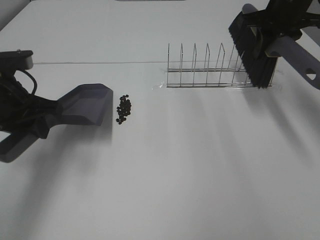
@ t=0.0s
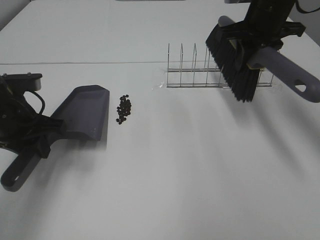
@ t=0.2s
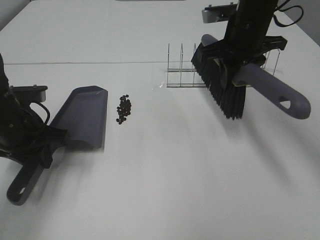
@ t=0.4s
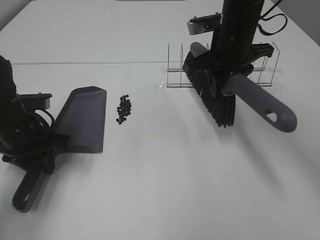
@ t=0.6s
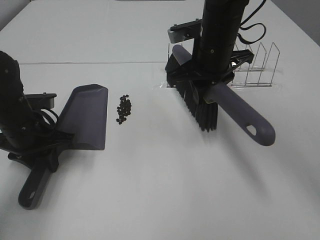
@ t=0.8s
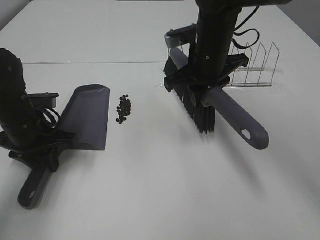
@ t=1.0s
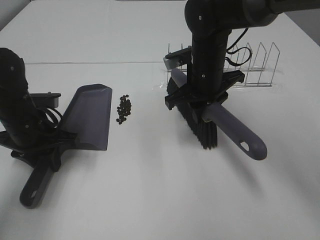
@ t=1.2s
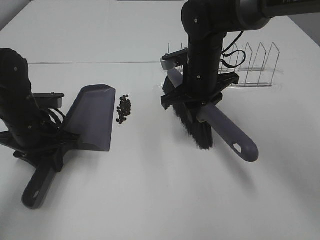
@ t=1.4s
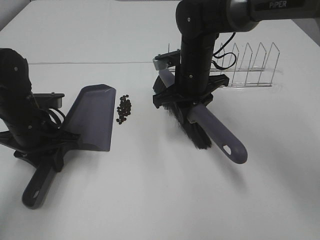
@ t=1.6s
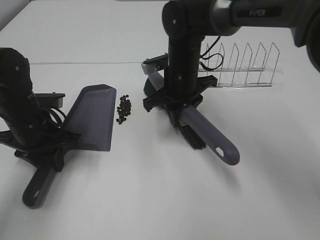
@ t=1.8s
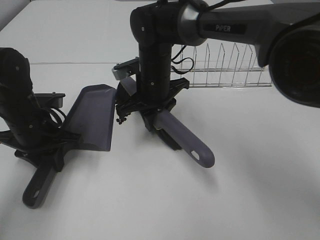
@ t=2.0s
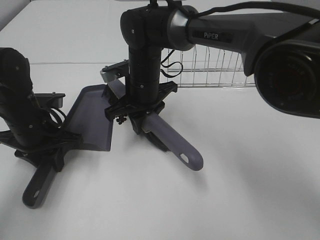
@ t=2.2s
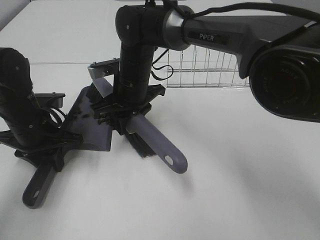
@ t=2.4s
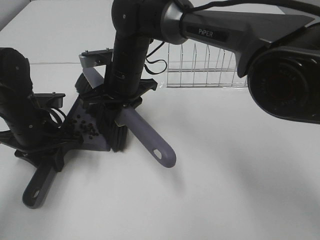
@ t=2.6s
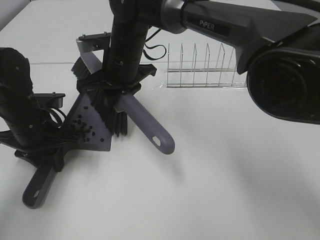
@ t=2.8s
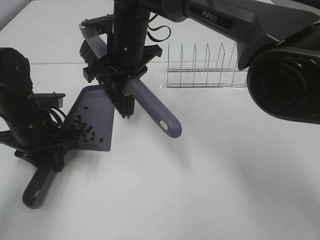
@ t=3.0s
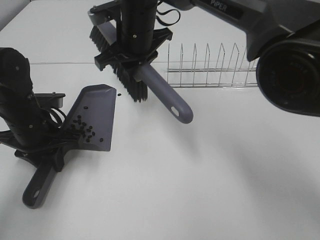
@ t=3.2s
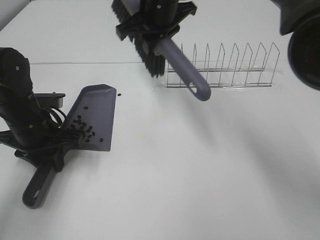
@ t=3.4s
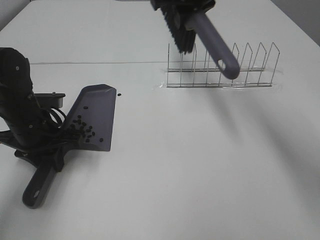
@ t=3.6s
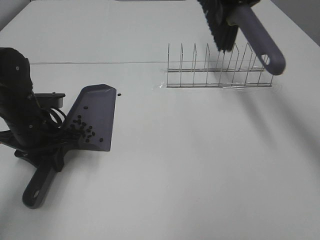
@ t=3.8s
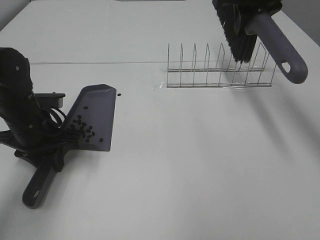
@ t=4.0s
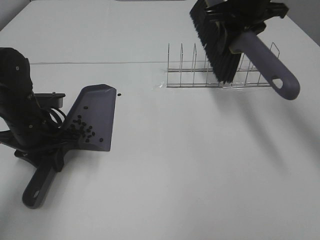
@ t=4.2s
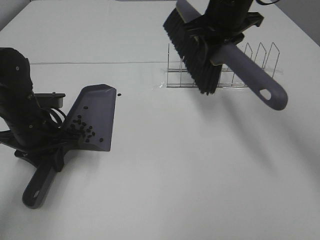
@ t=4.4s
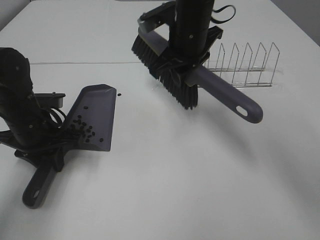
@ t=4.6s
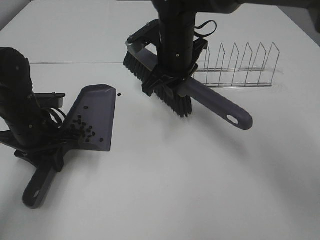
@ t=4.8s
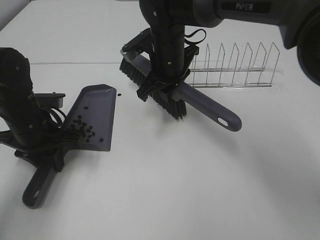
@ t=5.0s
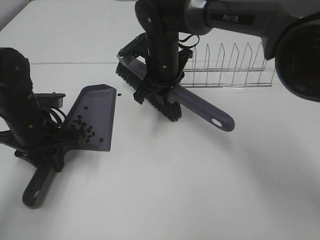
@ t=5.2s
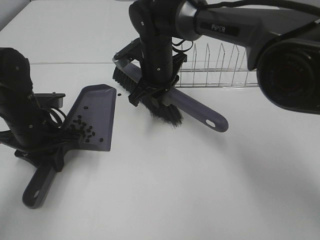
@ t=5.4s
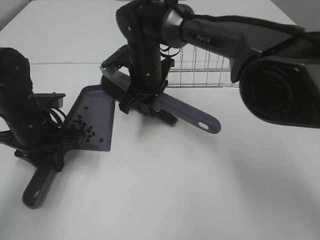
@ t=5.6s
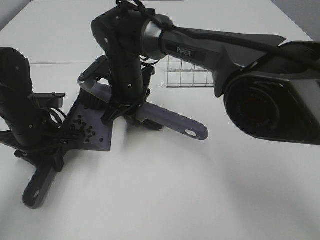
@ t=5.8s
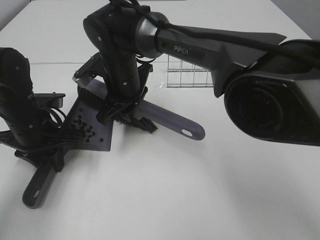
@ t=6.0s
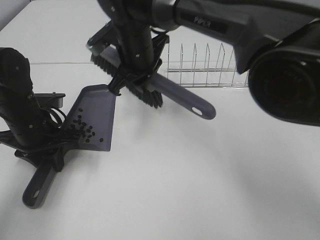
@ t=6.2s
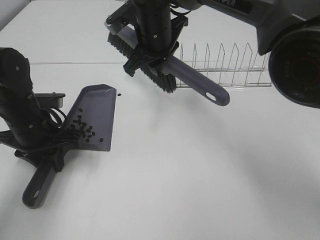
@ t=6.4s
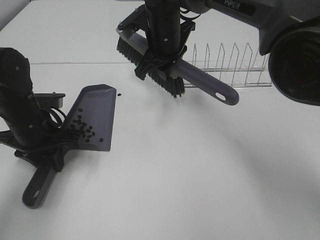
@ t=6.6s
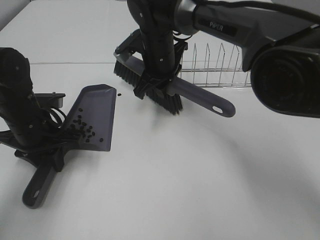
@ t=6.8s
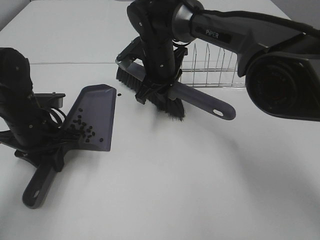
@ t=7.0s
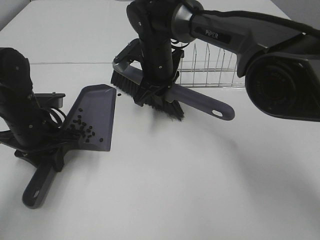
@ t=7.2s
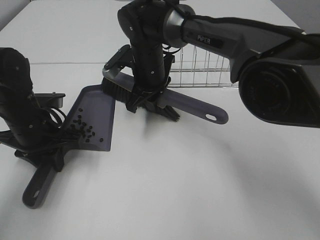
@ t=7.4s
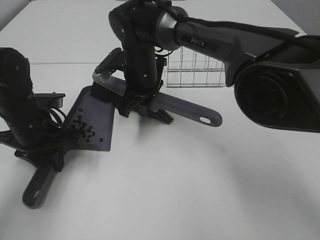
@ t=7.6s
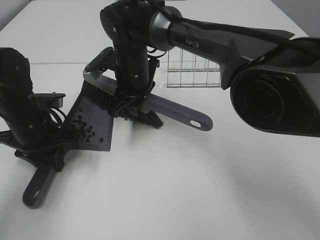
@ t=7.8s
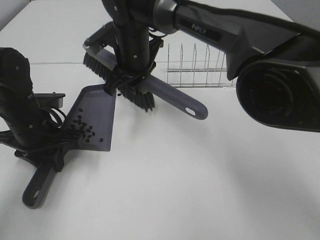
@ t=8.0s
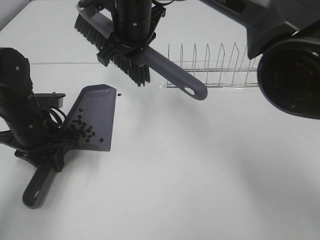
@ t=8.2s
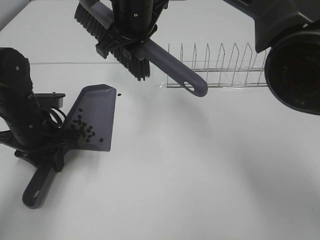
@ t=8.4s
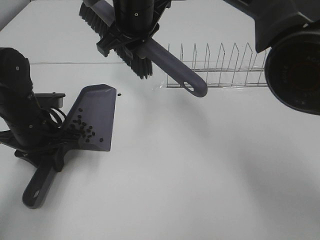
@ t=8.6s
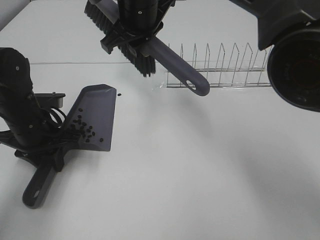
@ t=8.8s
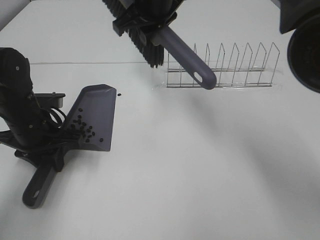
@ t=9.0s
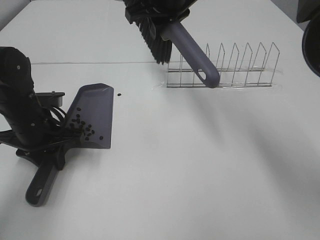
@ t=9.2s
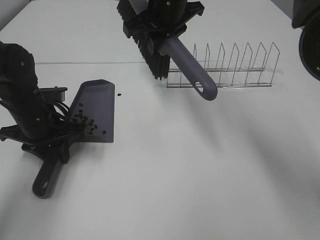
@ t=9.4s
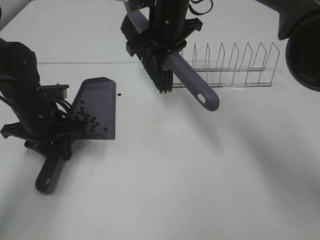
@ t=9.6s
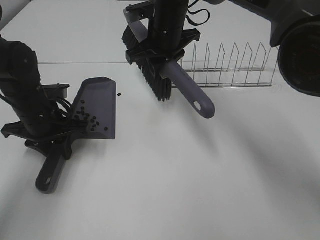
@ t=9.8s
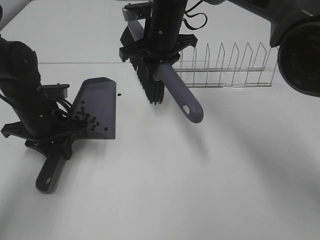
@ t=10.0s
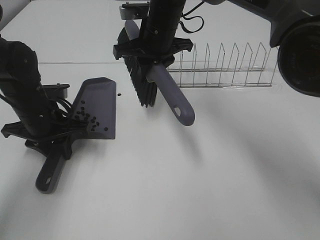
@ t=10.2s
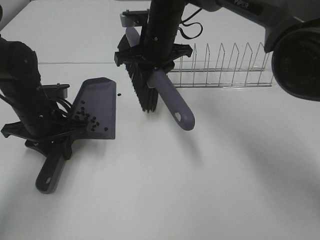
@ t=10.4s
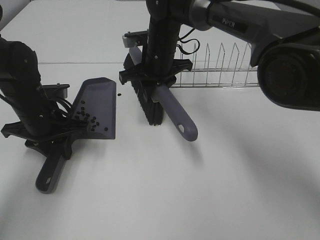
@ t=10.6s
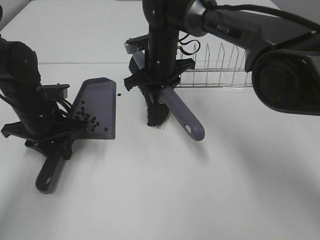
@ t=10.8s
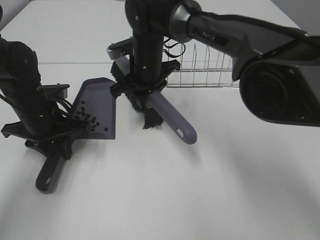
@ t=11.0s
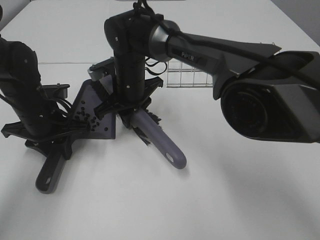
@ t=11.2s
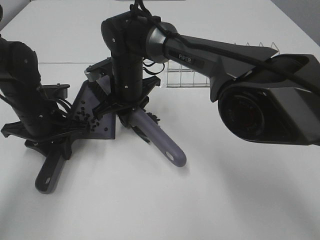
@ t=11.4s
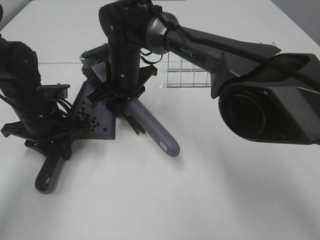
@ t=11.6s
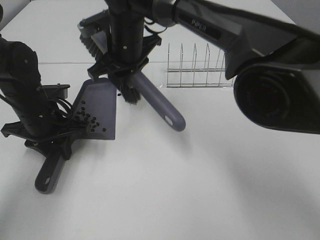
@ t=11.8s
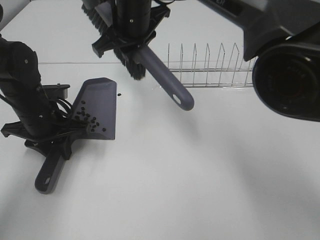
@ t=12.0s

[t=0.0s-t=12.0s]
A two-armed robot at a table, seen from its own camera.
Task of the whole recording: Sweep Coffee Bean.
Step, t=0.0s to t=11.6s: Right hand:sweep the coffee beans into the dustpan.
t=0.0s to t=1.6s: The right gripper moves to the left and downward, roughly 20 cm. The left gripper shifts about 10 cm downward.
t=1.6s to t=3.0s: The right gripper moves to the left and upward, some 15 cm.
t=3.0s to t=4.4s: The right gripper moves to the right and upward, roughly 15 cm.
t=4.4s to t=6.0s: The right gripper heads to the left and downward, covering about 20 cm.
t=6.0s to t=7.6s: The right gripper moves some 5 cm upward and comes back.
t=7.6s to t=9.0s: The right gripper moves upward, approximately 15 cm.
t=9.0s to t=10.4s: The right gripper heads downward, covering about 10 cm.
t=10.4s to t=12.0s: The right gripper goes roughly 5 cm upward.

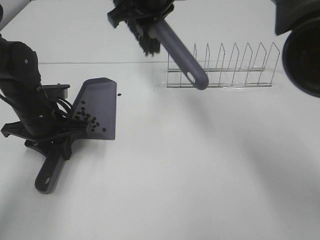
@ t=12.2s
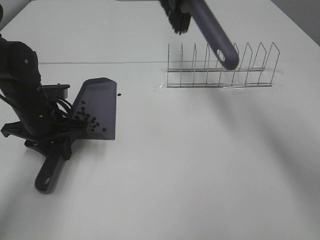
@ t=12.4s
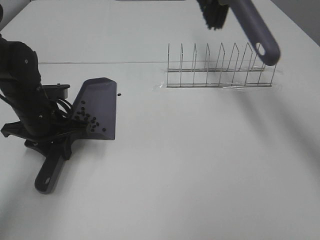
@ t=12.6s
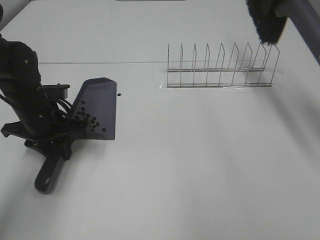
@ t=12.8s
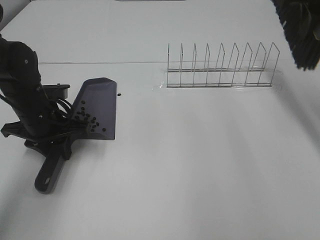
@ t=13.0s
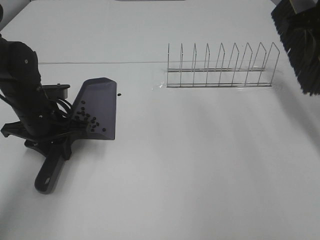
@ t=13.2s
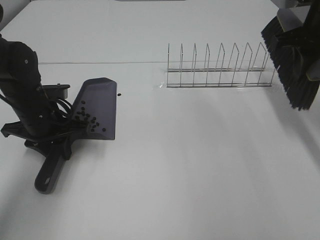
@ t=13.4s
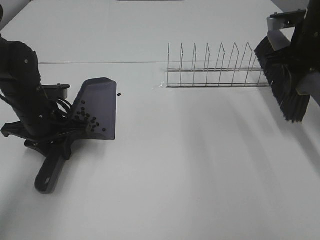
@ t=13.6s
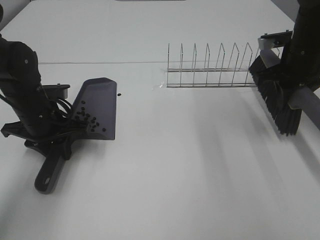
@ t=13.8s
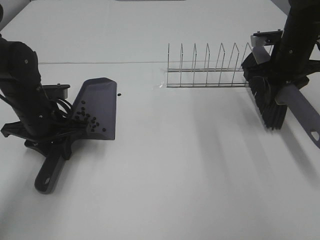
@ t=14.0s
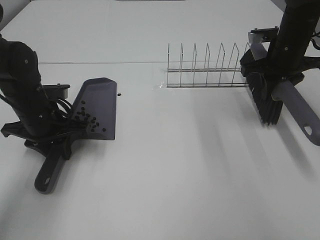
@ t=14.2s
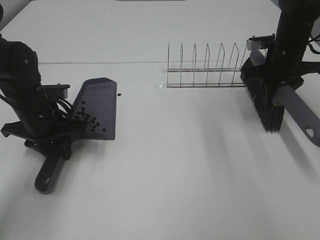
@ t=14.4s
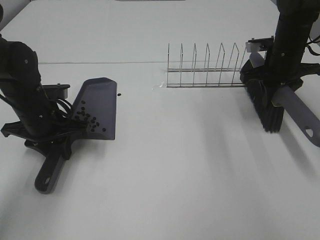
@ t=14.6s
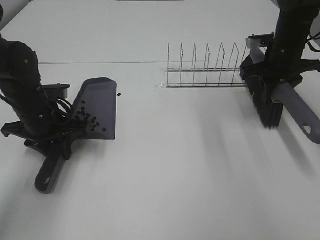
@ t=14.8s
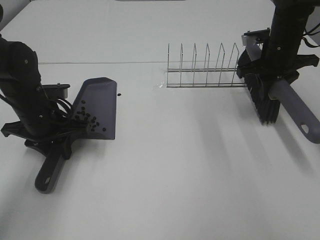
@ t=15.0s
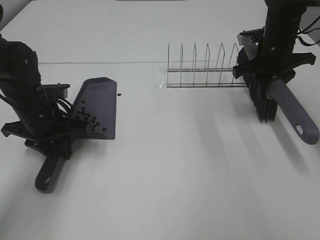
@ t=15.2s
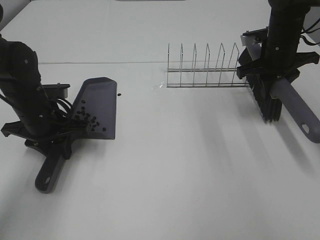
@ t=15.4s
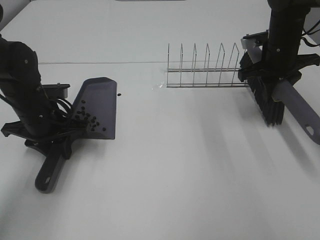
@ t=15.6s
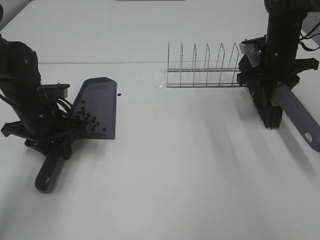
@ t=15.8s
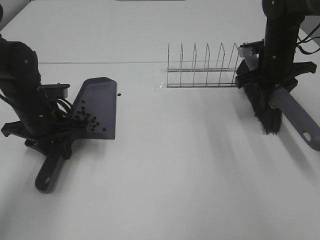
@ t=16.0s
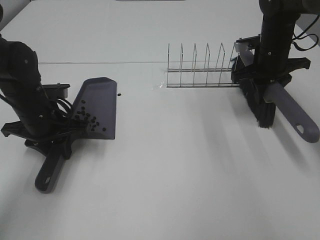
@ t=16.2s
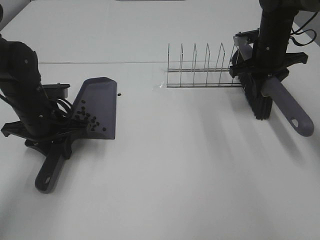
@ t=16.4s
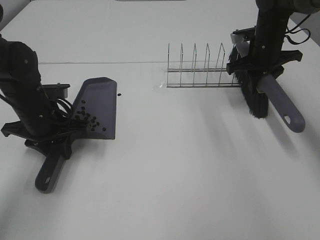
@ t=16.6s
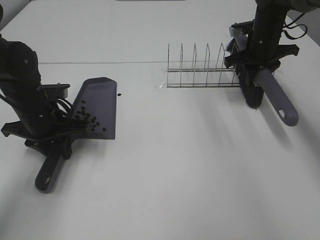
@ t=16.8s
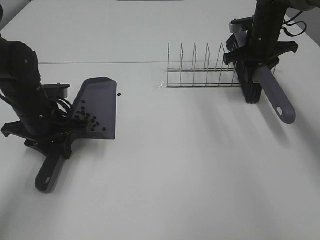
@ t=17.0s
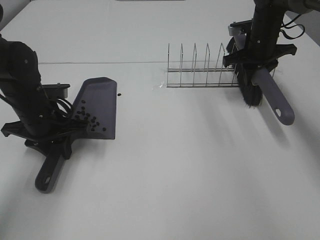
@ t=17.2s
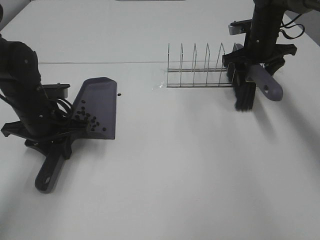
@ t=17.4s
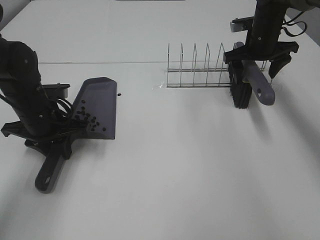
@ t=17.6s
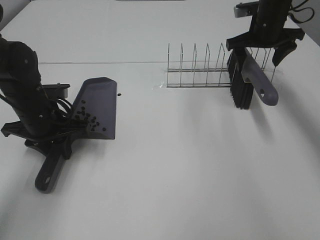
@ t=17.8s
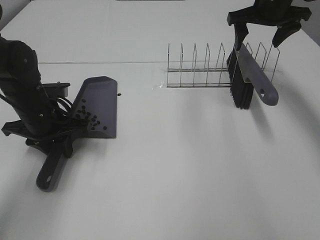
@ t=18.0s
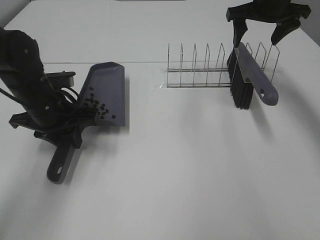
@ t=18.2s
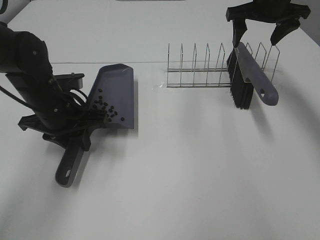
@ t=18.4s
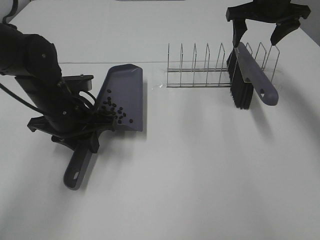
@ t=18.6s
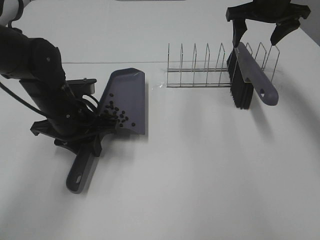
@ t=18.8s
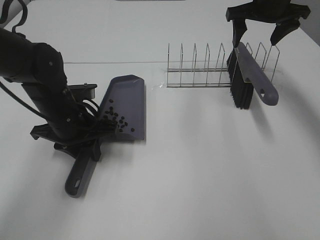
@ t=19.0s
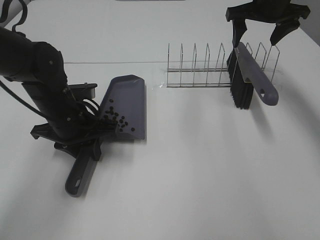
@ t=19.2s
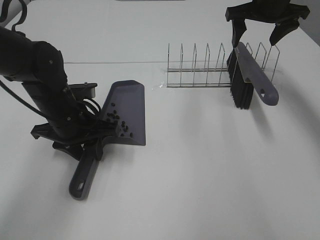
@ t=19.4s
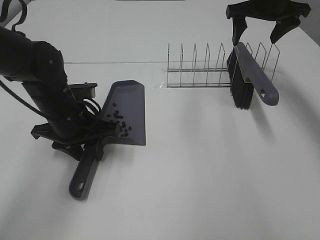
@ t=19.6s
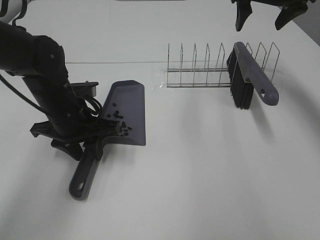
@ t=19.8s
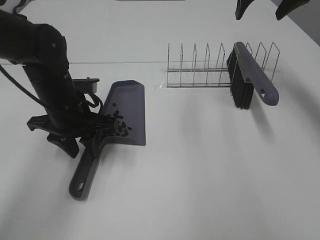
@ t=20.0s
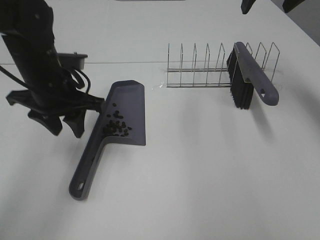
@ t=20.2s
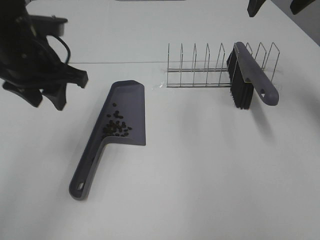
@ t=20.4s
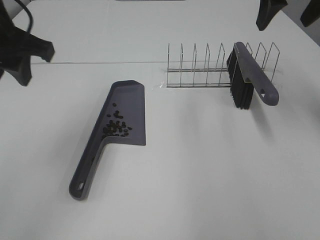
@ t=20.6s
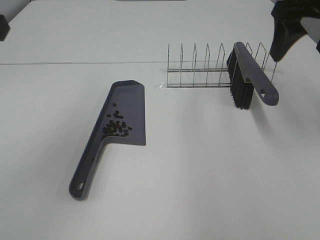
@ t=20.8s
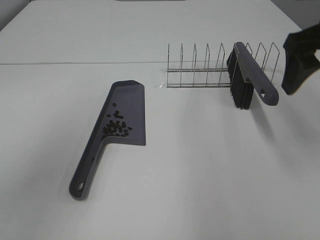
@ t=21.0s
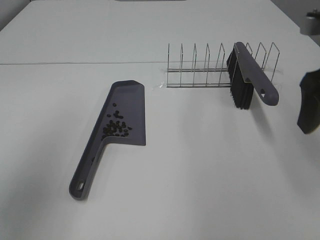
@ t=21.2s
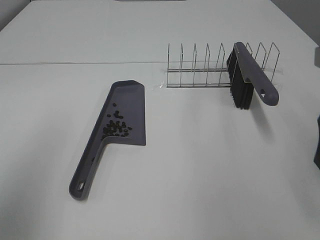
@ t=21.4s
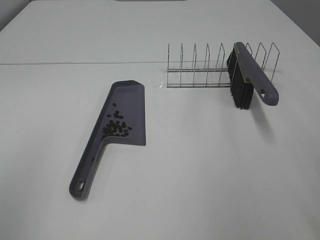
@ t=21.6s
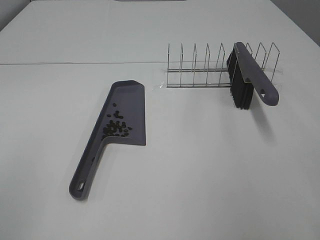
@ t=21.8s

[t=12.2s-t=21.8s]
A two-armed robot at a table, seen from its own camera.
Task of the whole recording: Sweep Coffee Bean.
Step, t=12.2s to t=17.8s: Right hand:place the broom on the rack.
Step, t=18.0s to t=19.8s: Left hand:place the dustpan on the table.
t=12.2s to t=13.8s: The right gripper is displaced to the right and downward by about 30 cm.
t=13.8s to t=15.4s: The right gripper changes place by roughly 5 cm.
t=15.4s to t=17.0s: The right gripper travels forward by approximately 5 cm.
t=17.0s to t=18.6s: The right gripper shifts some 10 cm upward, and opens its fingers. Meanwhile the left gripper is displaced to the right by roughly 5 cm.
t=18.6s to t=20.2s: The left gripper travels upward by approximately 5 cm, and opens. Meanwhile the right gripper moves upward and backward, roughly 10 cm.
t=20.2s to t=21.8s: The right gripper is displaced backward by about 30 cm, while the left gripper shifts approximately 30 cm backward and to the left.
